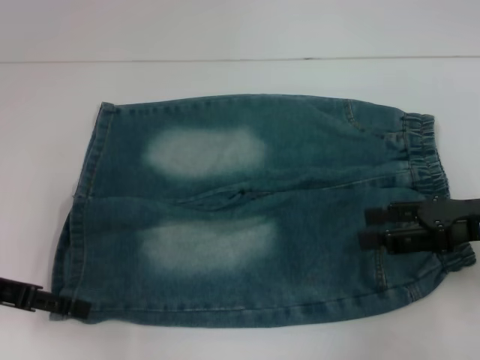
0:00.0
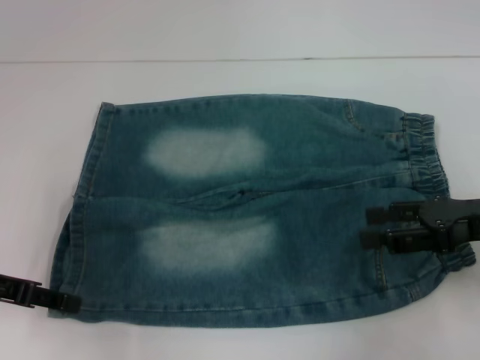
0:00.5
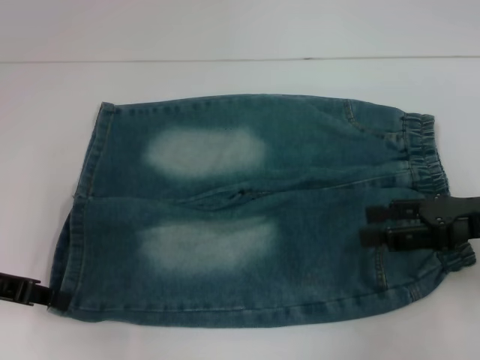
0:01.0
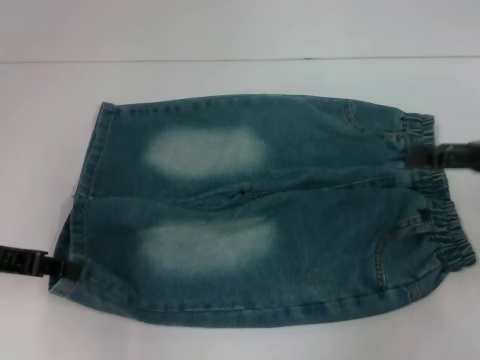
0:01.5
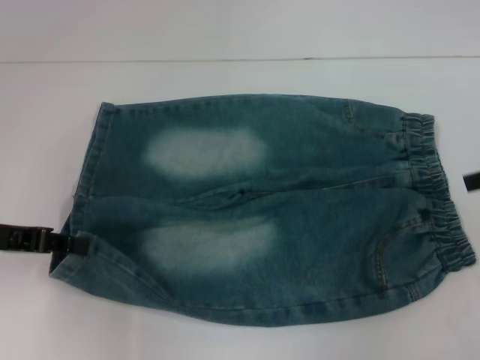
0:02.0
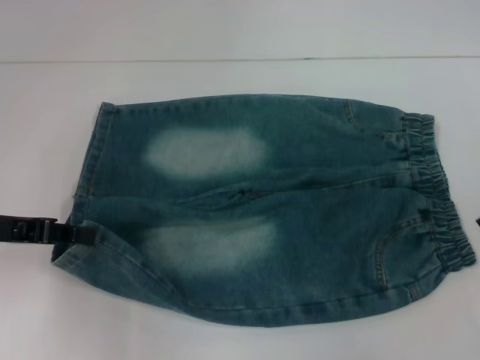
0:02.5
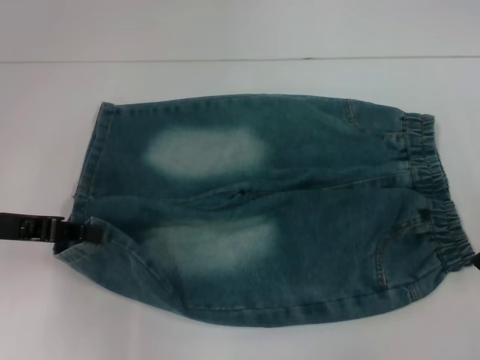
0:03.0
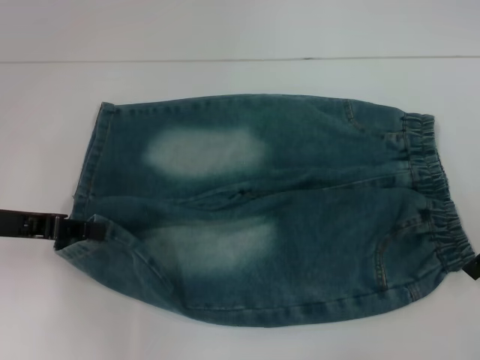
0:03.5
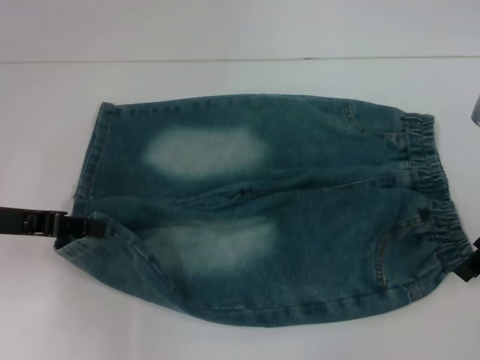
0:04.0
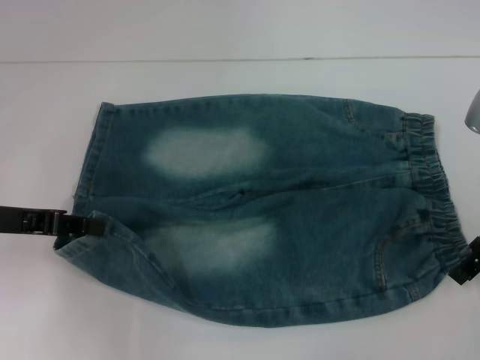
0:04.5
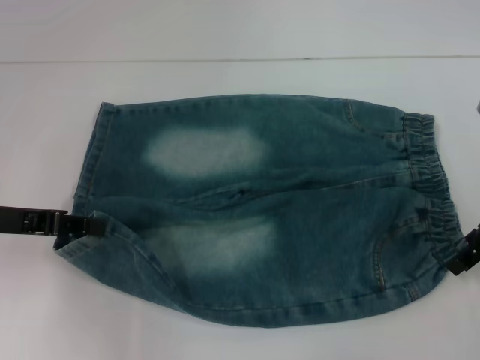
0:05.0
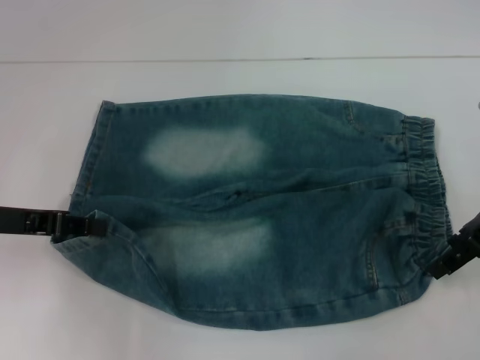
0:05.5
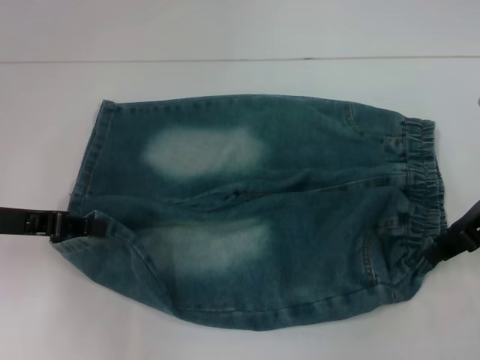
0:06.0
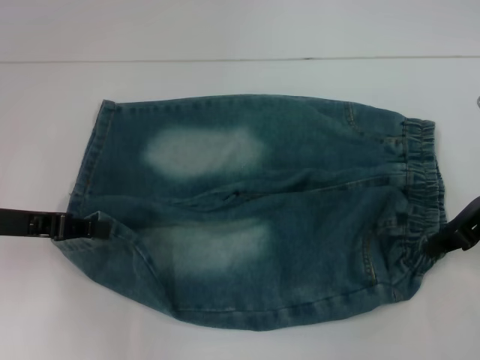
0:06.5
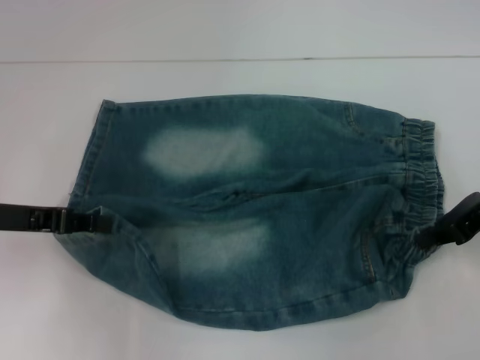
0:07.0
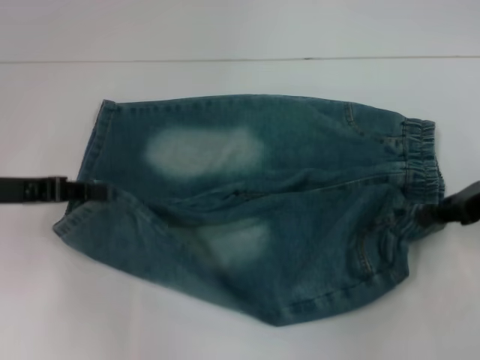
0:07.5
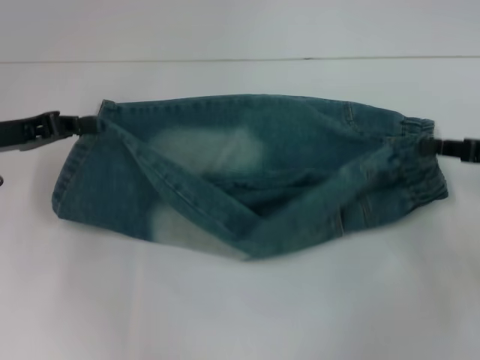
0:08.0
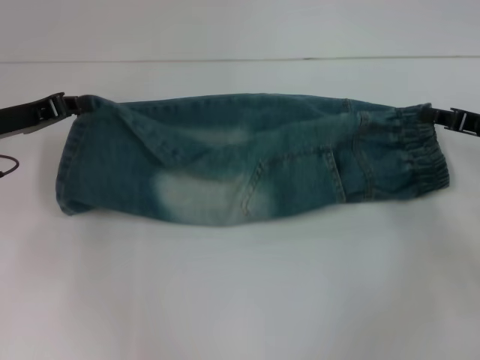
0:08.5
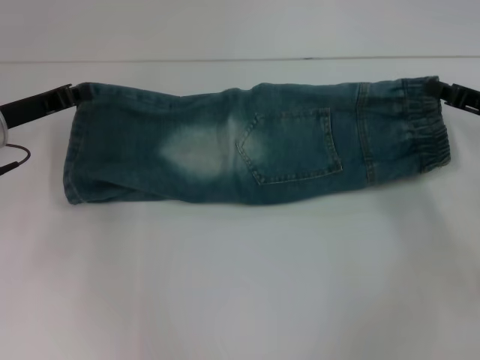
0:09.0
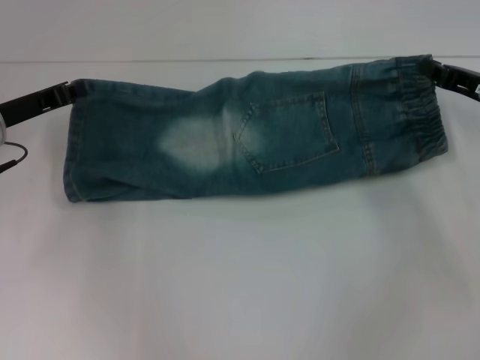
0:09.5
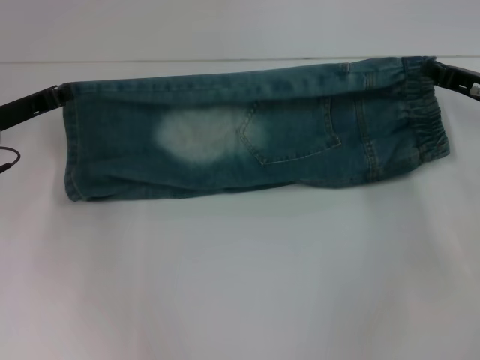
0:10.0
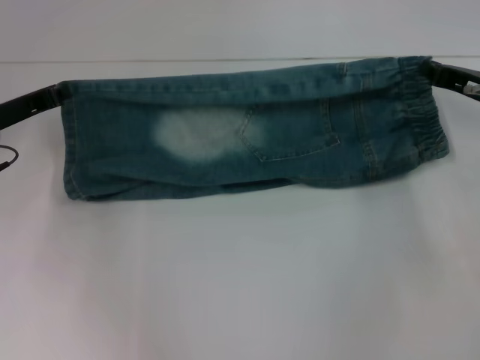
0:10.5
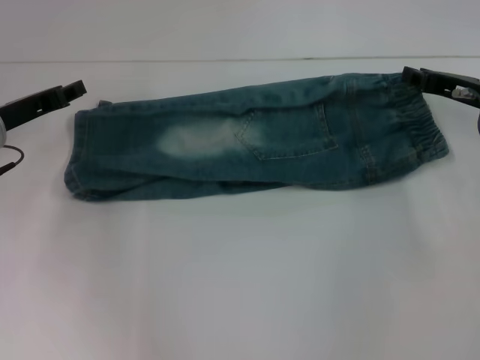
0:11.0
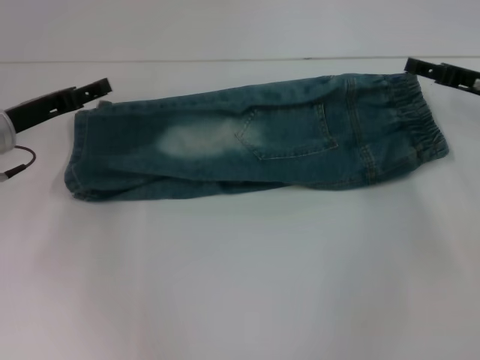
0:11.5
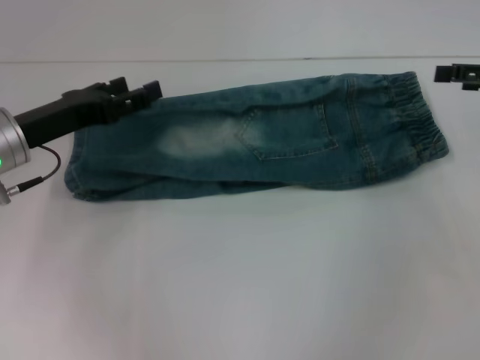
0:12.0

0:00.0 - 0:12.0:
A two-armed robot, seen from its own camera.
Step, 0:01.0 - 0:05.5: Hold the lower right waistband with your right hand.
Step, 0:06.0 - 0:10.5: Fold upward with your left hand.
0:00.0 - 0:02.0: The right gripper moves upward and to the right, roughly 10 cm, while the left gripper closes up.
0:02.0 - 0:04.0: The right gripper heads to the left, covering approximately 10 cm.
0:04.0 - 0:06.0: The grippers move only a little.
0:06.0 - 0:08.0: The right gripper heads to the right, covering approximately 5 cm, and closes.
0:08.0 - 0:10.0: The left gripper moves roughly 5 cm. The right gripper is displaced forward by about 5 cm.
0:10.0 - 0:12.0: The left gripper changes place by roughly 5 cm, and opens. The right gripper heads upward and to the right, covering about 10 cm, and opens.

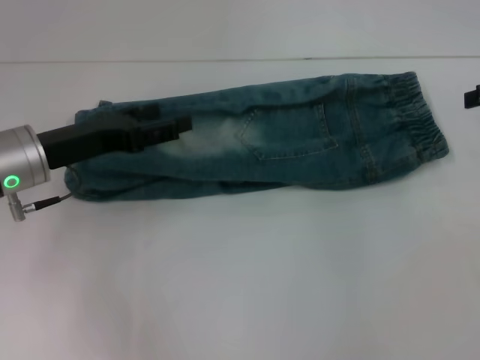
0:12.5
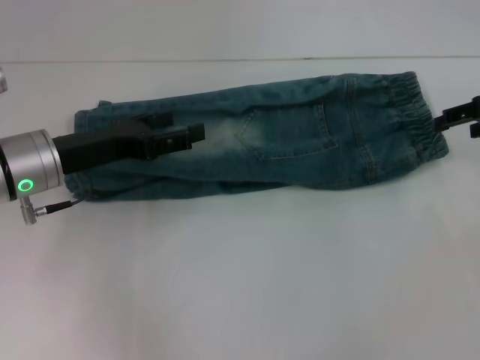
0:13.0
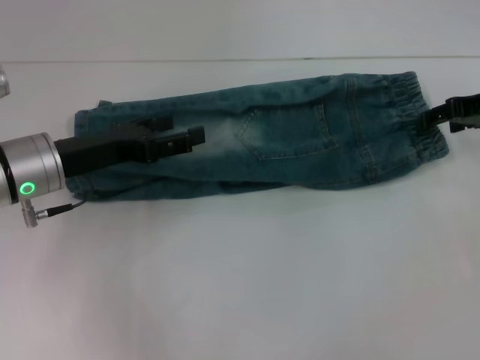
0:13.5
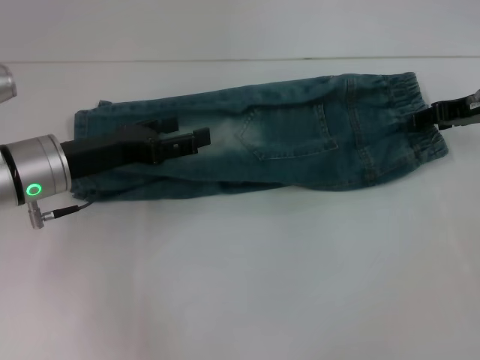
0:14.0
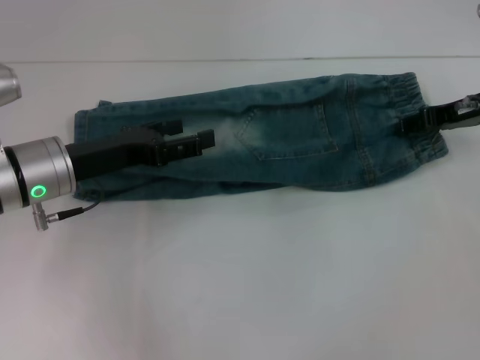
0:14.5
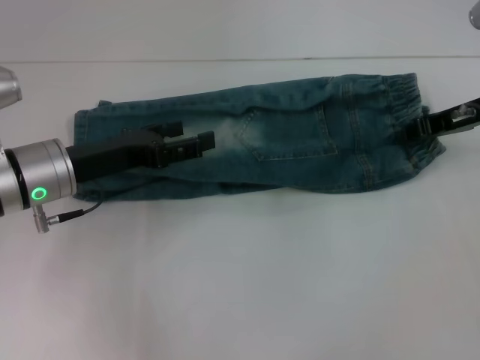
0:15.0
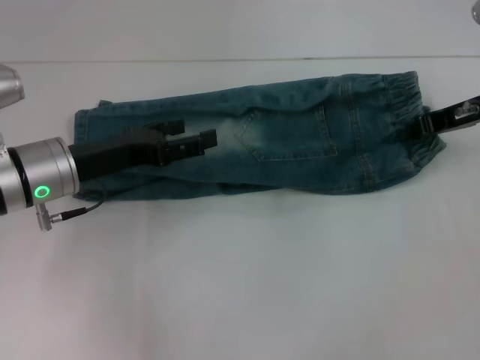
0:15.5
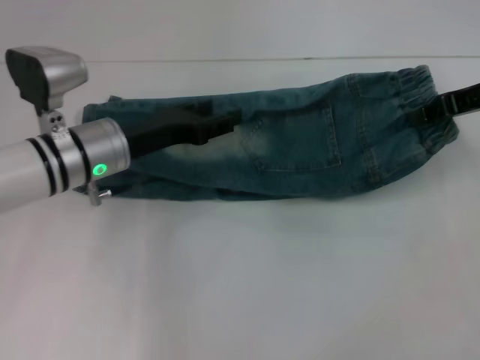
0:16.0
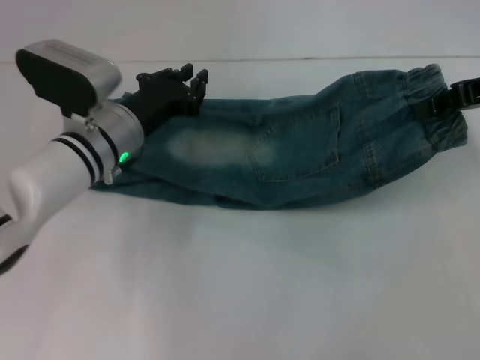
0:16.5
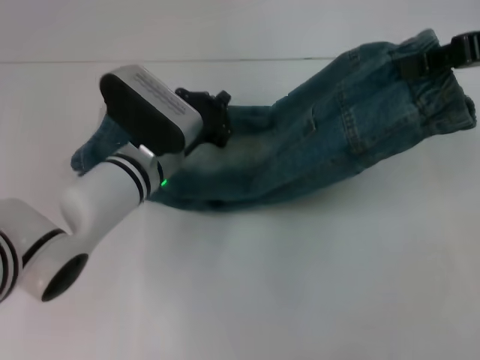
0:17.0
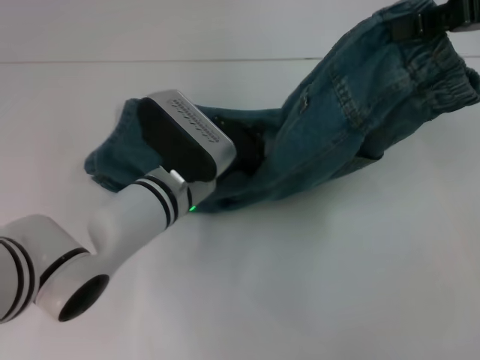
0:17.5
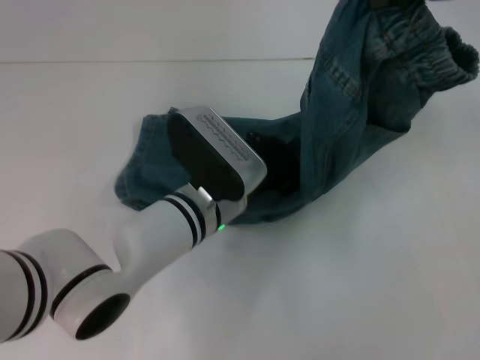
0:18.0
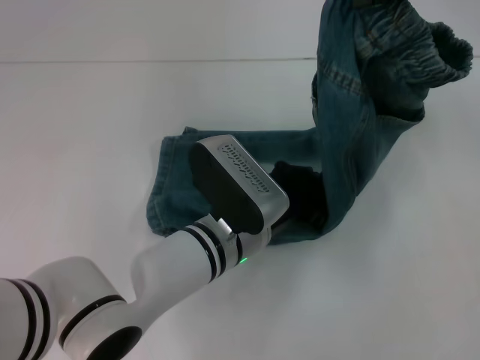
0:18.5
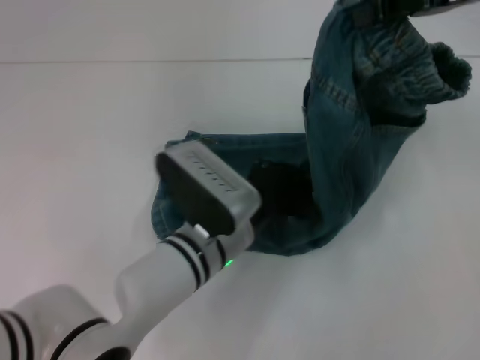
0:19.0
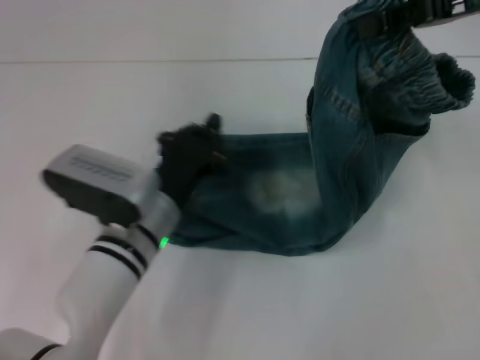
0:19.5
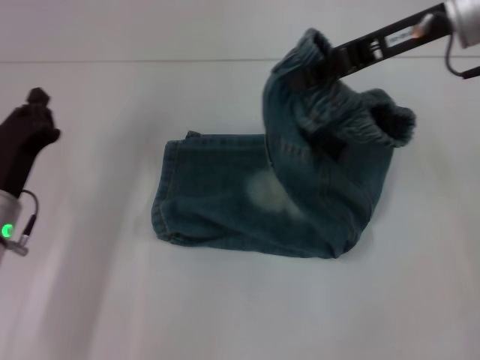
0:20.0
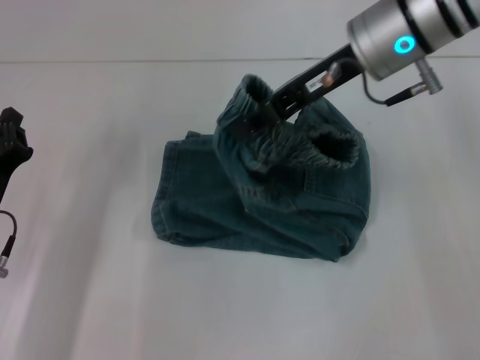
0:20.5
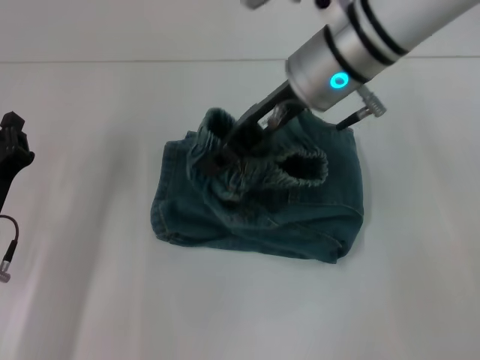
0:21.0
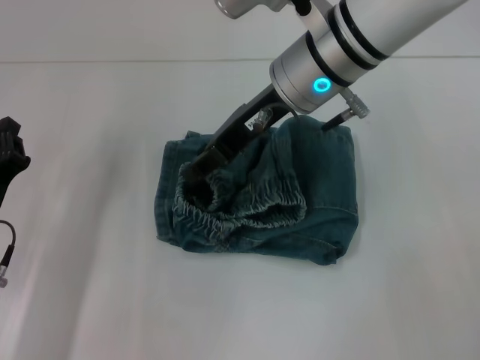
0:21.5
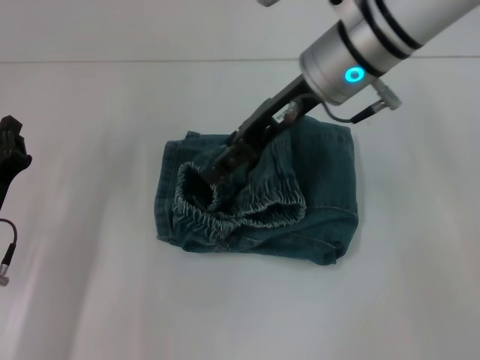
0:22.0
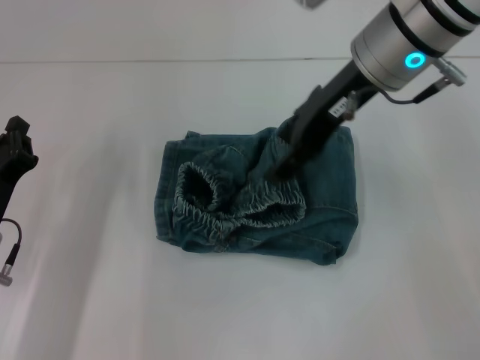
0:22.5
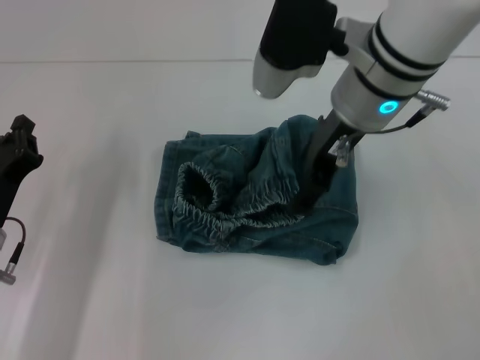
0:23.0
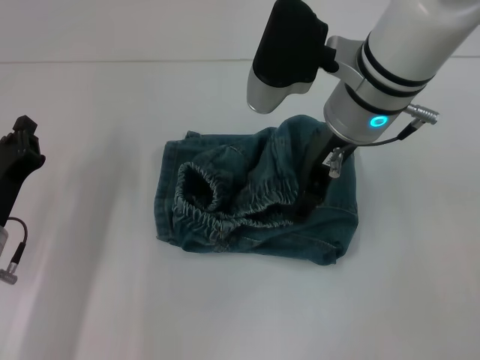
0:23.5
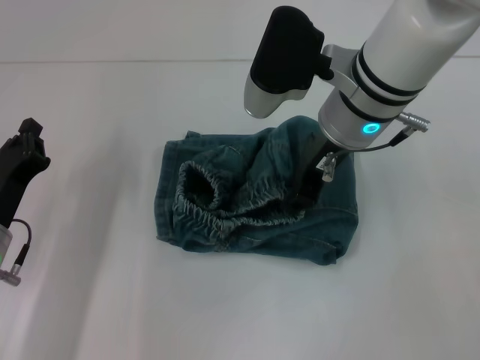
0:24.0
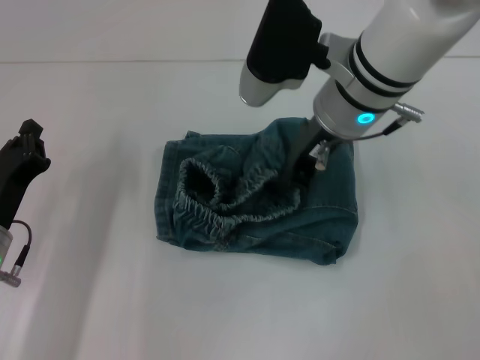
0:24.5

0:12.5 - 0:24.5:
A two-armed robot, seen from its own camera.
Step, 0:12.5 - 0:15.0: Grab the waistband with your right hand.
Step, 0:15.5 - 0:18.5: Press the middle of the pants with your left hand.
Step, 0:19.0 - 0:21.0: Fold to the left with your right hand.
0:12.5 - 0:14.5: The right gripper goes about 10 cm to the left and downward.
0:14.5 - 0:16.5: The right gripper heads upward, covering some 10 cm, and closes. The left gripper heads to the right, covering approximately 5 cm, and closes up.
0:16.5 - 0:18.5: The left gripper moves to the right and backward, roughly 15 cm, and closes. Meanwhile the right gripper moves upward and to the left, about 10 cm.
0:18.5 - 0:20.5: The left gripper is displaced to the left by about 25 cm, while the right gripper goes about 15 cm to the left and downward.
0:20.5 - 0:22.5: The right gripper opens its fingers.
0:22.5 - 0:24.5: The right gripper ends up some 5 cm from where it was, and closes its fingers.

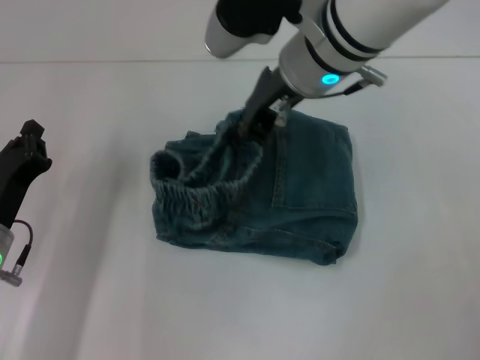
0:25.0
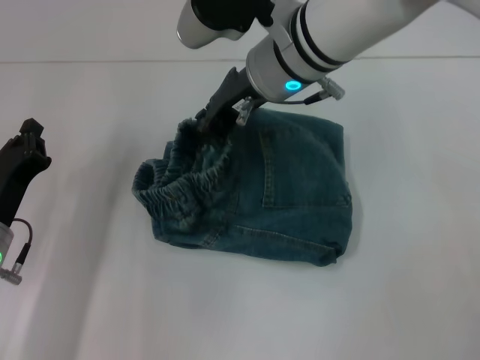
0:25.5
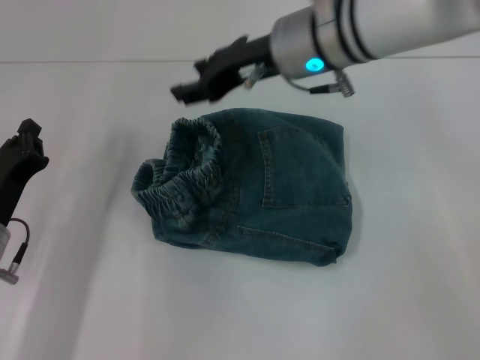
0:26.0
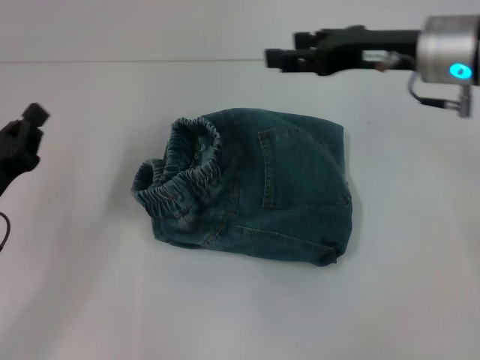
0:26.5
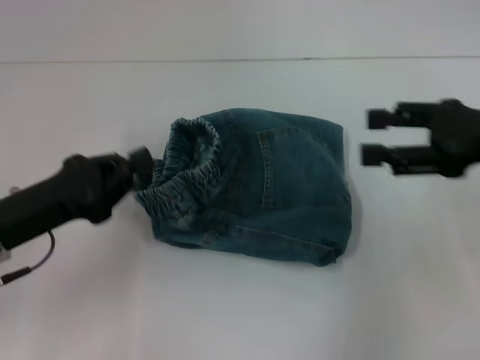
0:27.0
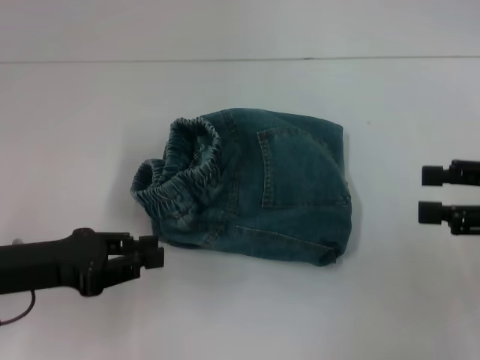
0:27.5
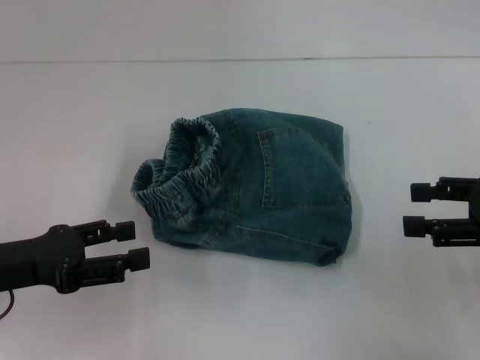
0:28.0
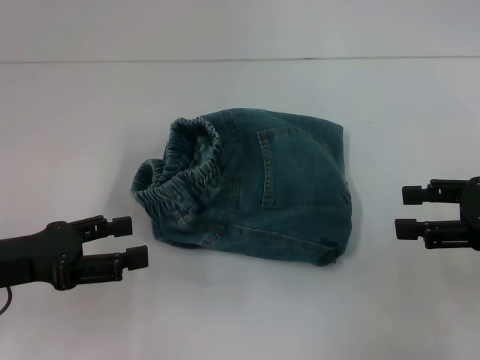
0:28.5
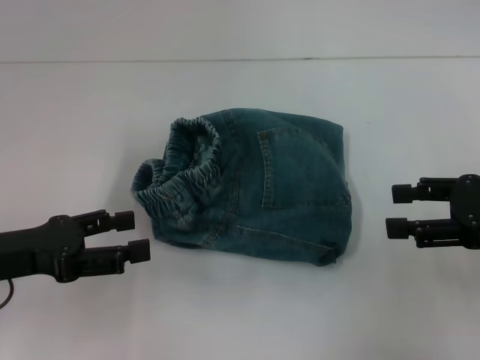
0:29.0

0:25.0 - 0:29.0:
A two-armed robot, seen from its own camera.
0:25.0 - 0:27.0: The right gripper heads to the right, covering about 25 cm, and opens up, while the left gripper is displaced upward by approximately 5 cm.
0:27.0 - 0:29.0: The right gripper changes place by about 5 cm; the left gripper opens up.
